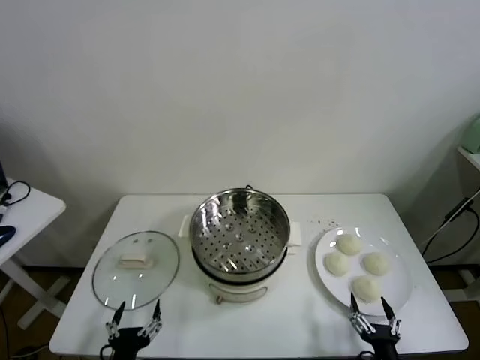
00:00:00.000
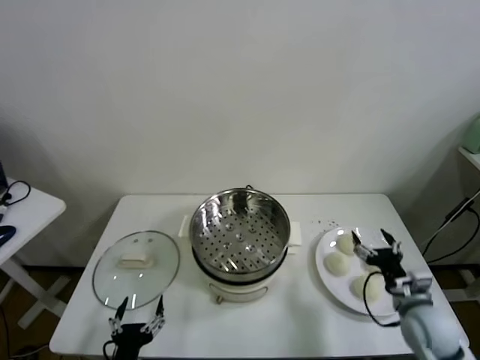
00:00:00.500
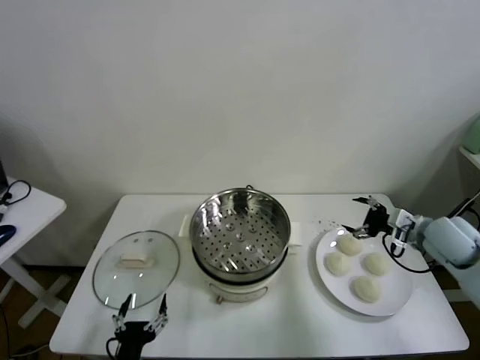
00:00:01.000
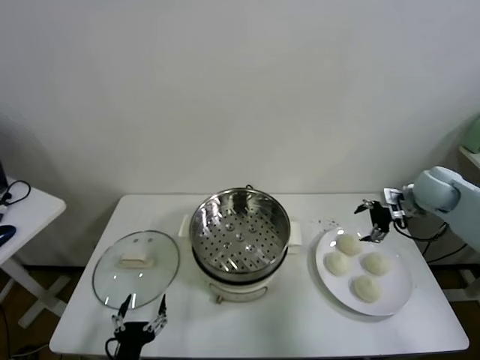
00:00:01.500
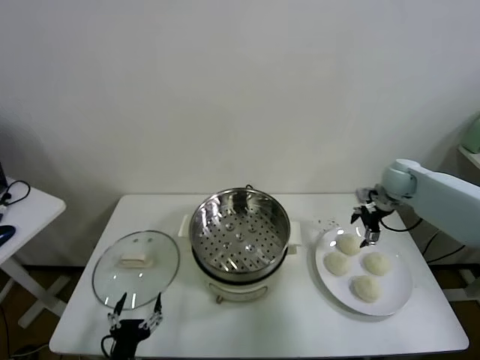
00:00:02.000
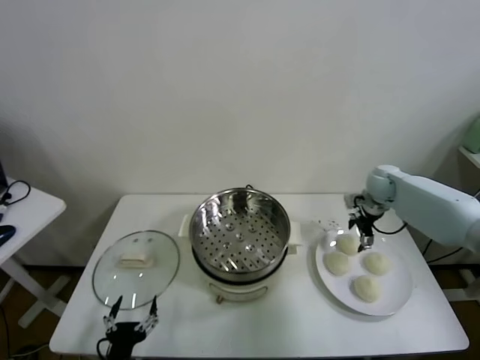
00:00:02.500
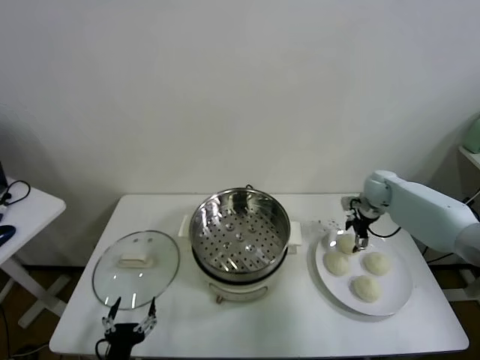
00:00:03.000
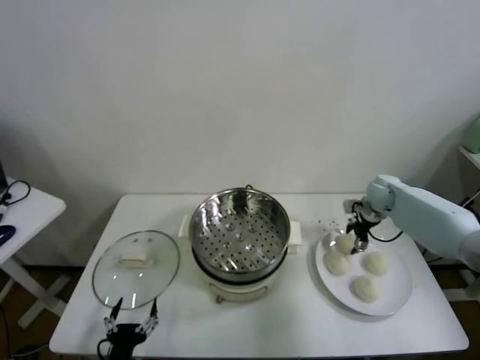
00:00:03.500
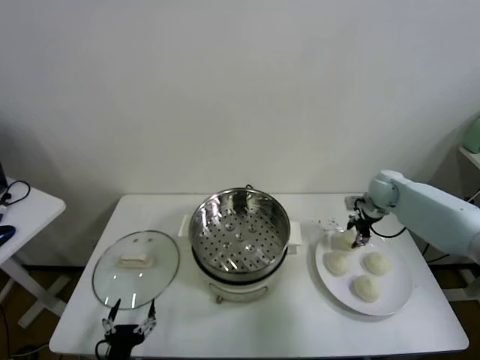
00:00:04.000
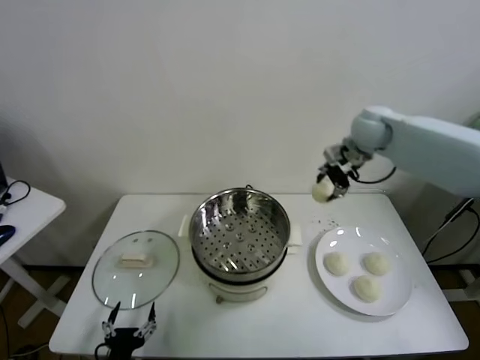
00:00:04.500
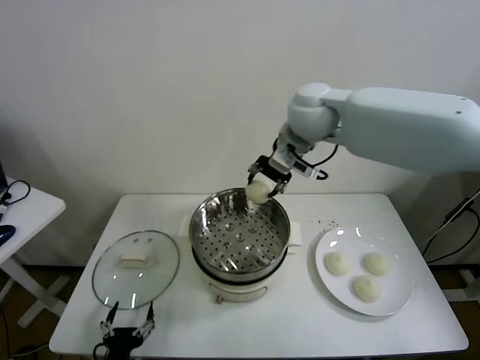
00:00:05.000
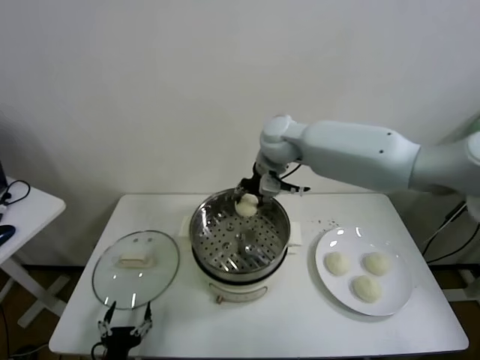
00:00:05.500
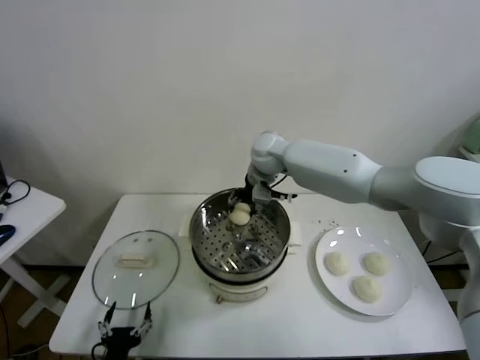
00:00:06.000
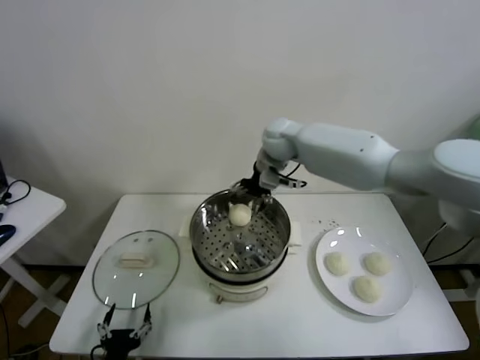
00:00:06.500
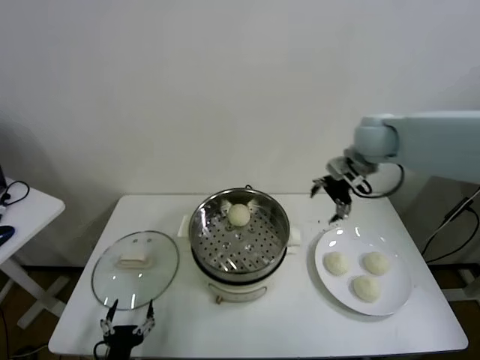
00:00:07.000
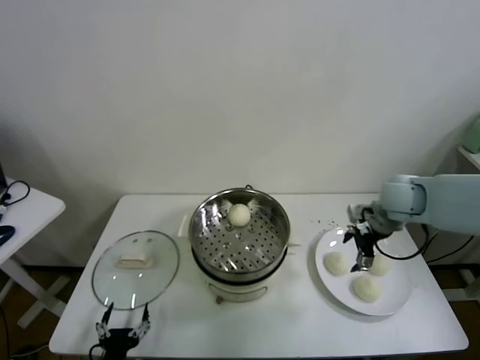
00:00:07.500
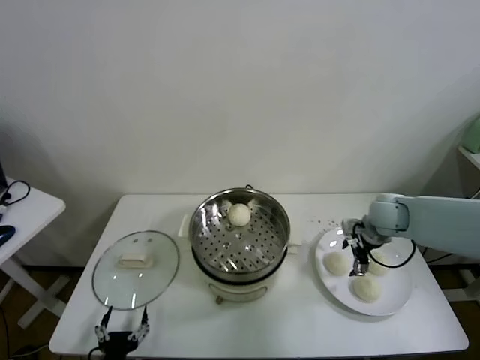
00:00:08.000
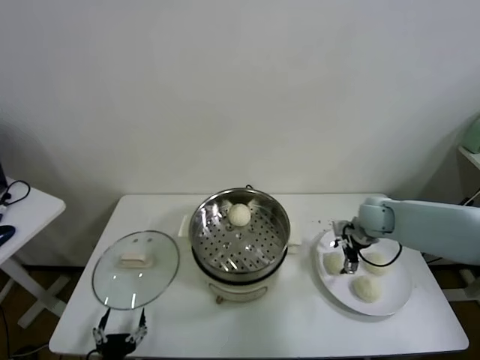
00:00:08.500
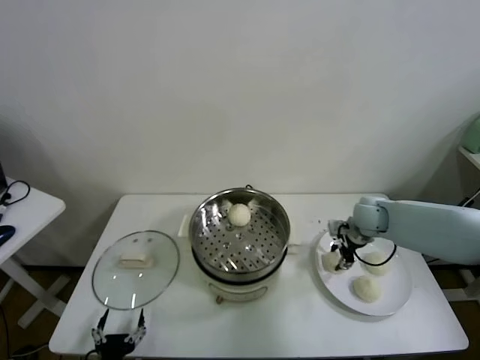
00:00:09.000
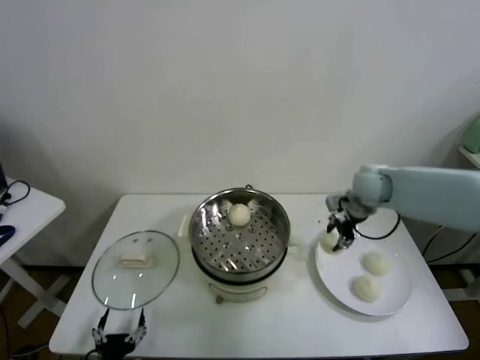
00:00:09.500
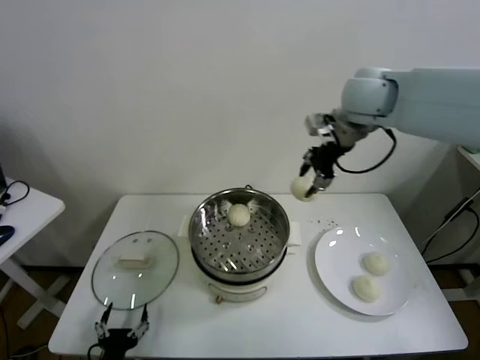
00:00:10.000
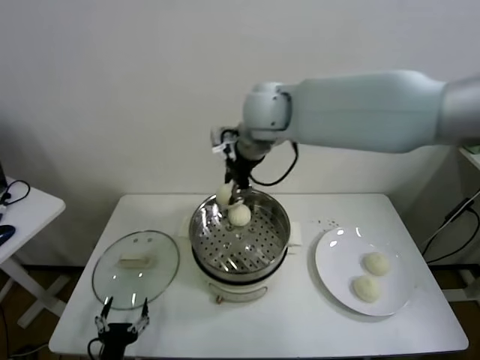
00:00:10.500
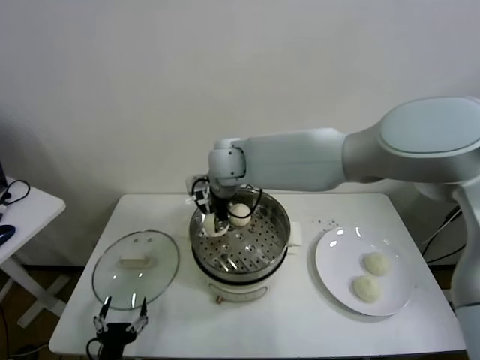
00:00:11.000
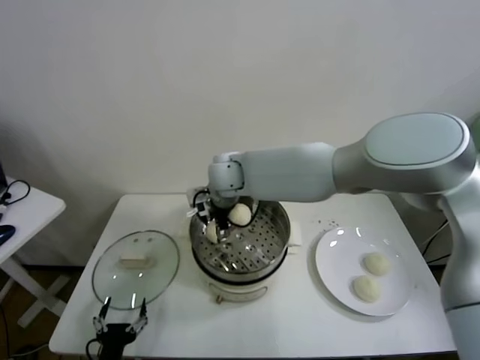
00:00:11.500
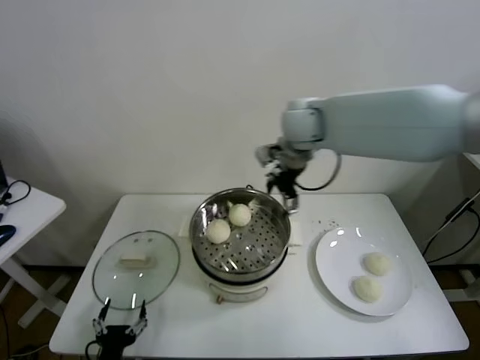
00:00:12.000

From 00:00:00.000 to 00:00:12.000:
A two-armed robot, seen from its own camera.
Task of the whole recording: take steamed baozi put them in steamer.
Step, from 00:00:00.000 to 00:00:03.500: Grasp the baozi in the plate with right gripper.
Step, from 00:00:04.000 to 00:00:06.000: Place the baozi on the steamer with right gripper.
Step, from 00:00:06.500 to 00:00:08.500: Grasp the baozi in the plate with right gripper.
Step, from 00:00:09.000 to 00:00:11.500: Place the baozi on the steamer with right gripper.
From 00:00:02.000 to 00:00:04.000: The right gripper moves some 5 cm, and closes its fingers.
From 00:00:04.000 to 00:00:06.000: The right gripper shifts about 30 cm to the left.
From 00:00:06.000 to 00:00:08.000: The right gripper travels to the right by roughly 30 cm, and opens up.
From 00:00:08.000 to 00:00:10.000: The right gripper travels upward and to the left by about 30 cm, and closes up.
From 00:00:10.000 to 00:00:12.000: The right gripper moves to the left and downward, approximately 15 cm, and opens.

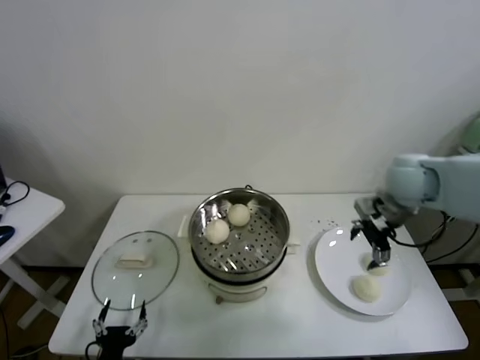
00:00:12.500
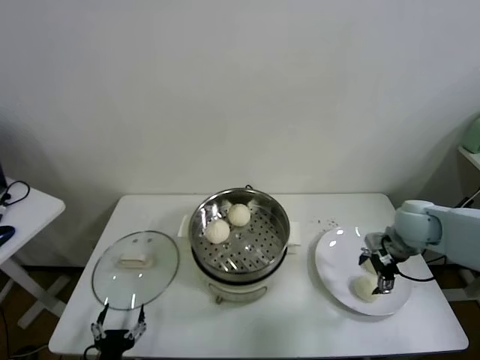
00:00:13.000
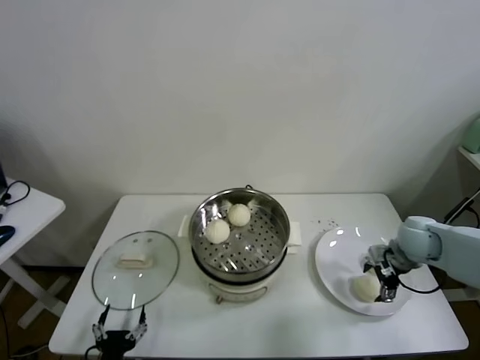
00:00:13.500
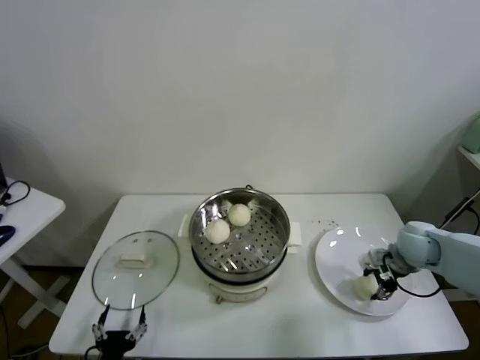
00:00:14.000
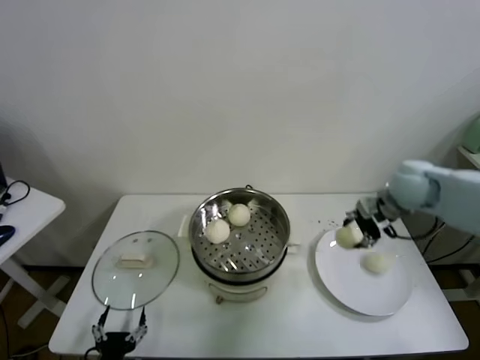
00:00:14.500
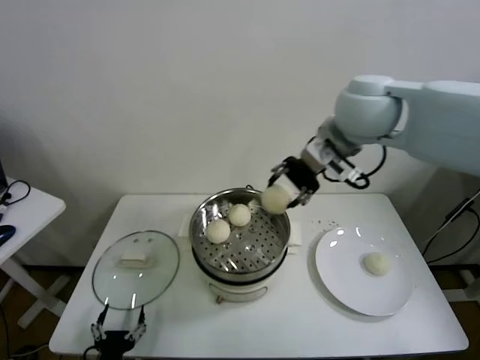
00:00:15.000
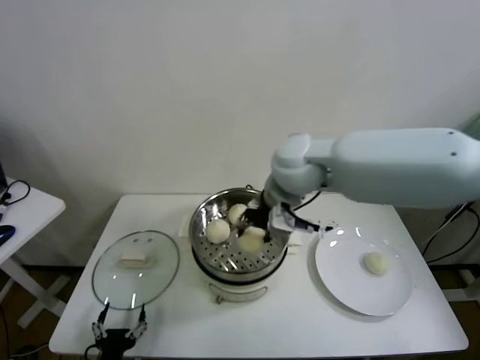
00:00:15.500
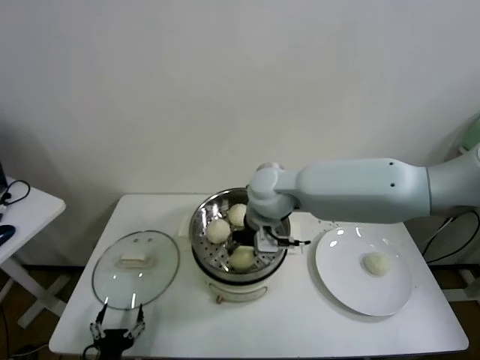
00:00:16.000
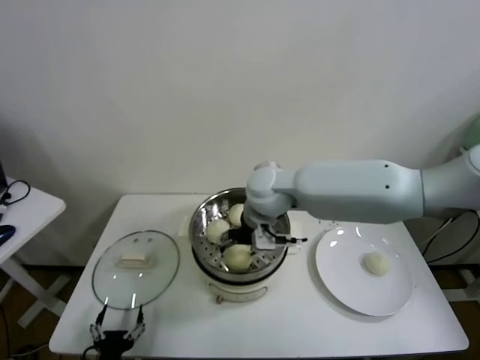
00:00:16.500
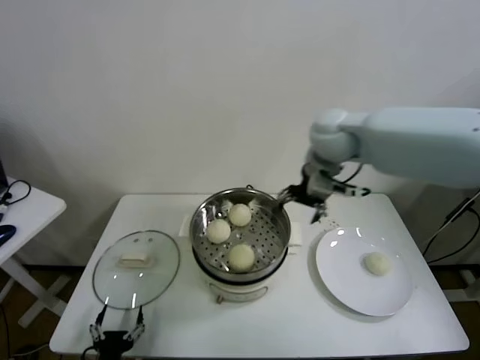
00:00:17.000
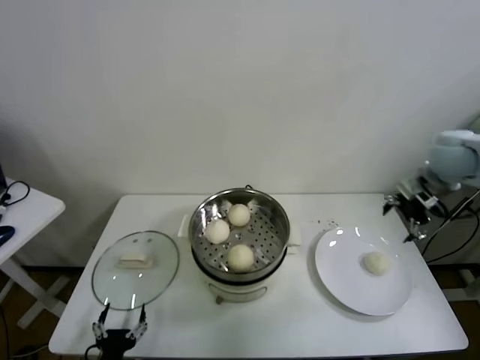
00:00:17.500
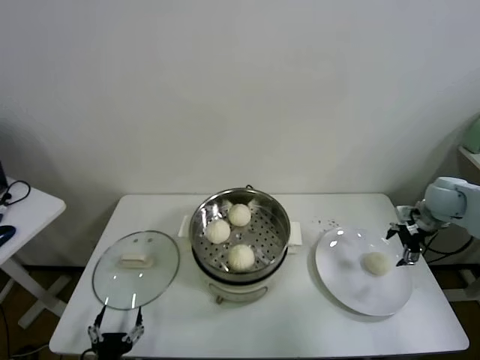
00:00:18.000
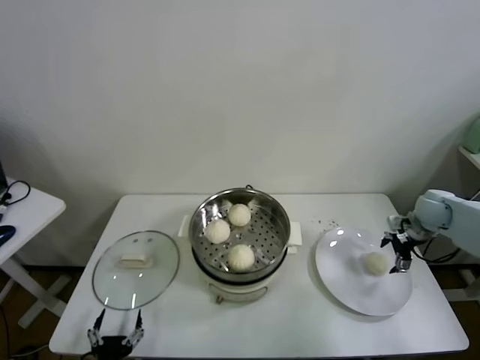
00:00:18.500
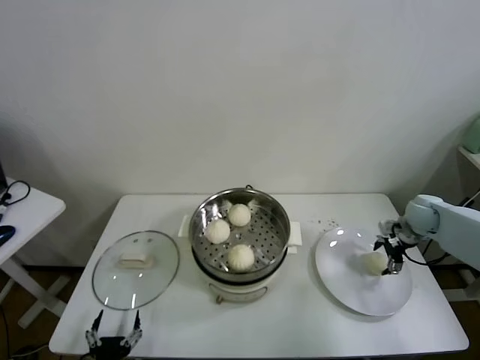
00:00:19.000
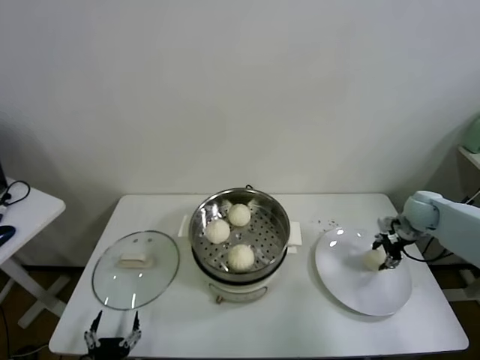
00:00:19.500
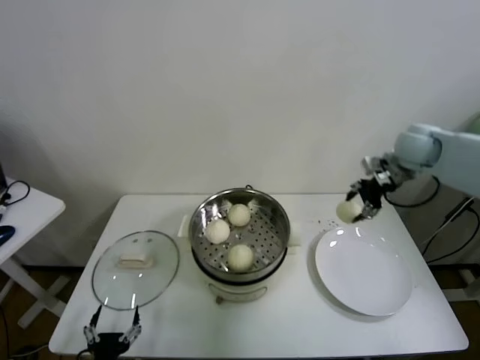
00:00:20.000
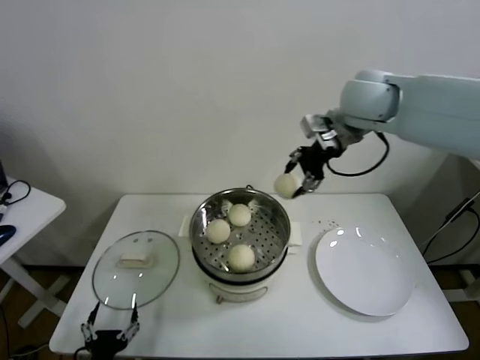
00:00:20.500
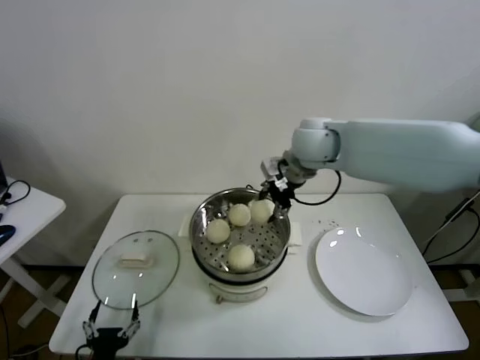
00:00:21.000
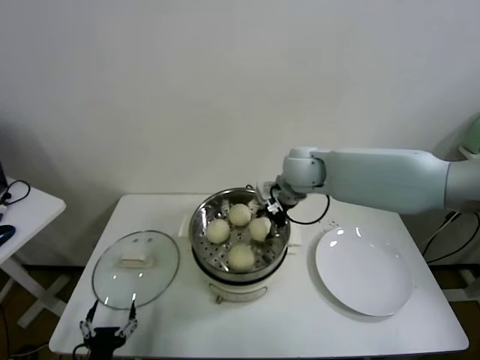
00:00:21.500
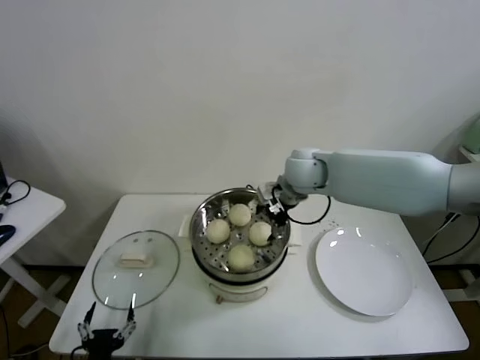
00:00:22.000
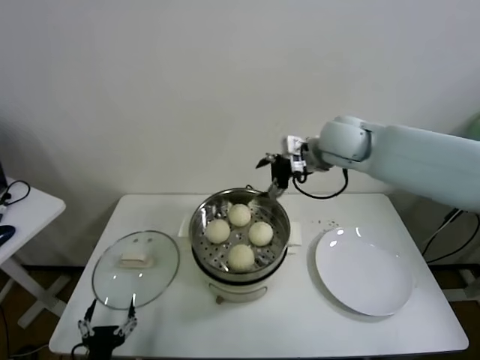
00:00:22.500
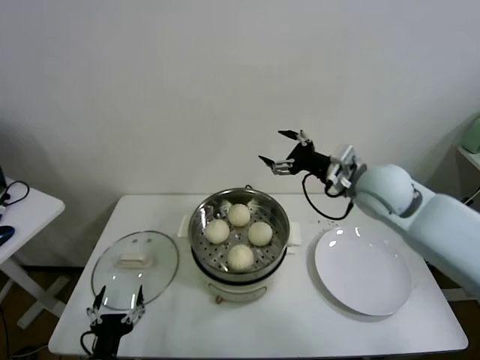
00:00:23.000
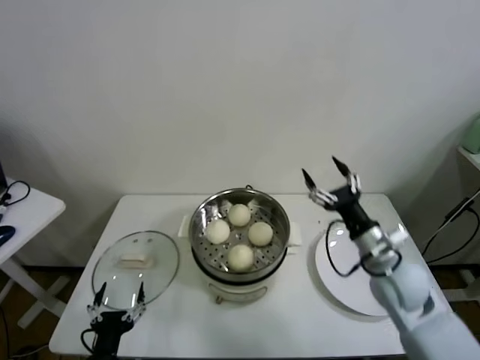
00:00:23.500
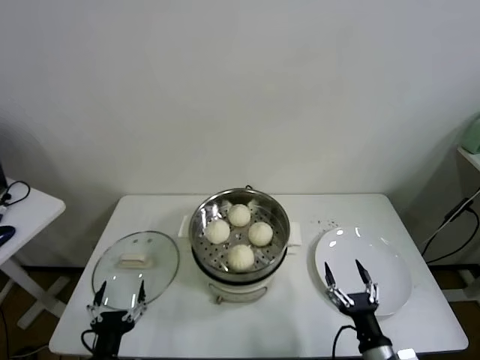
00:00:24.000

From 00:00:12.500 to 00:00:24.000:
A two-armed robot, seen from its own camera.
Task of the whole recording: take steamed baozi put them in steamer.
Step, from 00:00:14.000 to 00:00:16.500: Place the baozi on the steamer with right gripper.
Step, from 00:00:17.000 to 00:00:19.000: Grasp the baozi in the plate with right gripper.
Step, from 00:00:19.500 to 00:00:22.000: Place the baozi on the steamer with right gripper.
From 00:00:12.500 to 00:00:14.500: The right gripper moves roughly 20 cm downward and comes back, and closes.
From 00:00:14.500 to 00:00:16.500: The right gripper heads to the left, covering approximately 30 cm, and opens.
From 00:00:16.500 to 00:00:18.500: The right gripper goes about 40 cm to the right.
From 00:00:18.500 to 00:00:20.000: The right gripper moves upward and to the left, roughly 15 cm, and closes its fingers.
From 00:00:20.000 to 00:00:22.000: The right gripper goes roughly 25 cm to the left, and opens.
From 00:00:22.000 to 00:00:24.000: The right gripper travels backward, downward and to the right by roughly 50 cm.
